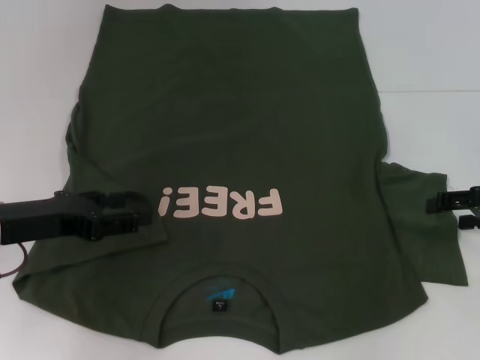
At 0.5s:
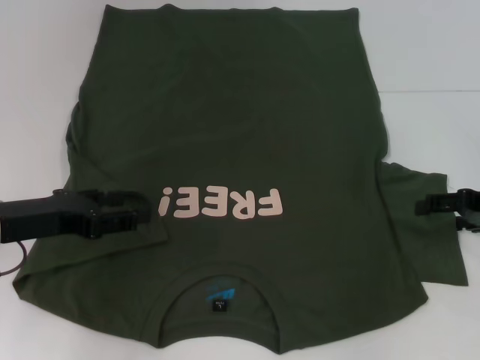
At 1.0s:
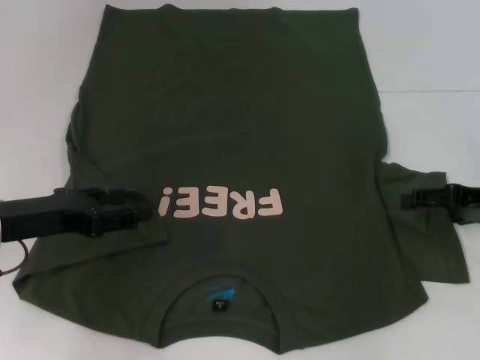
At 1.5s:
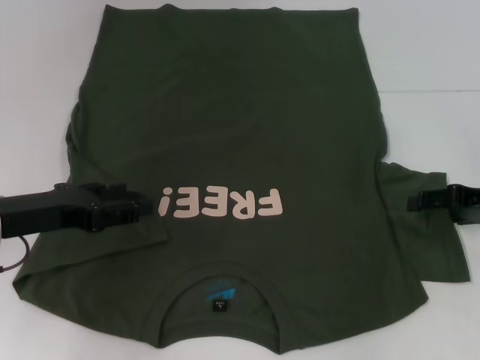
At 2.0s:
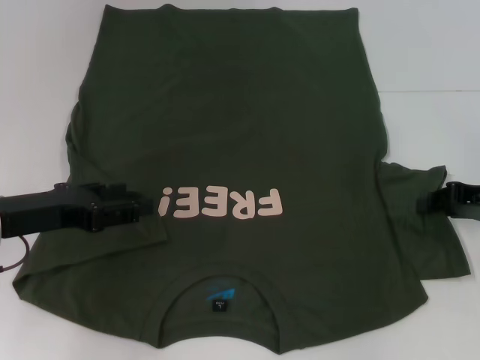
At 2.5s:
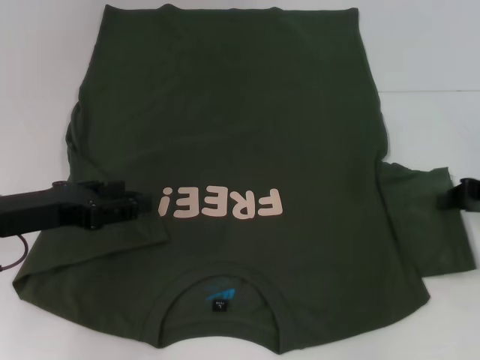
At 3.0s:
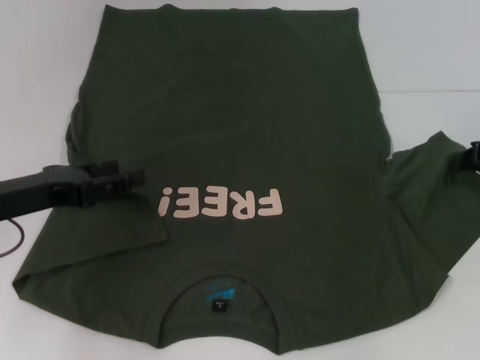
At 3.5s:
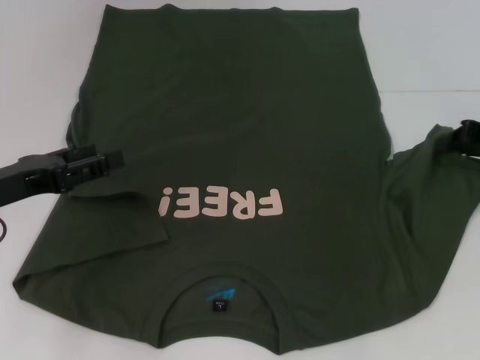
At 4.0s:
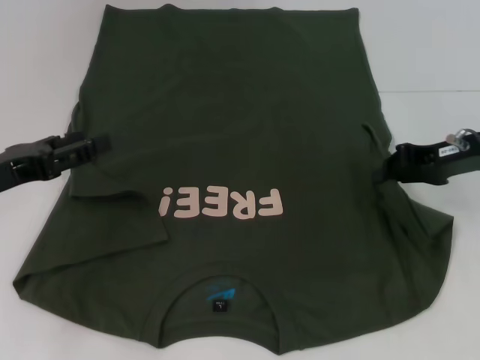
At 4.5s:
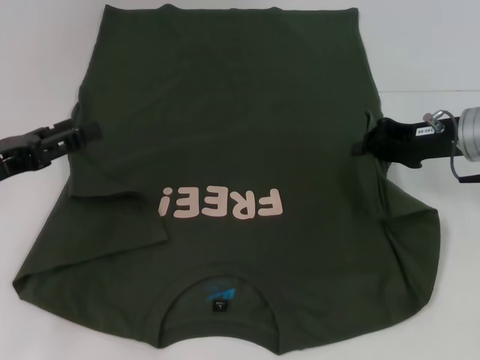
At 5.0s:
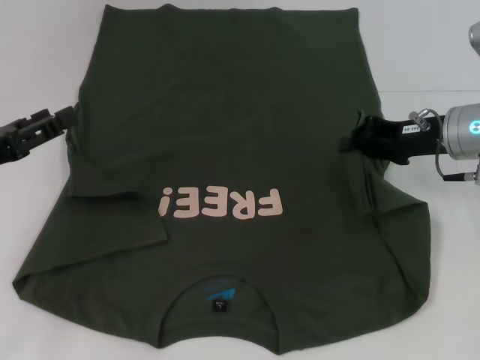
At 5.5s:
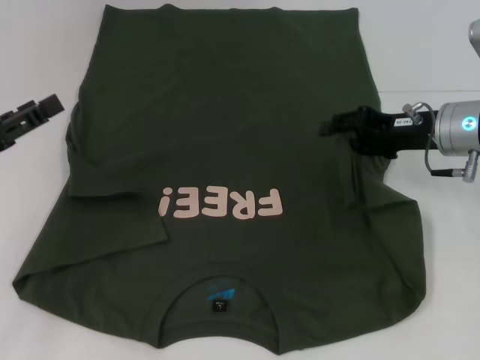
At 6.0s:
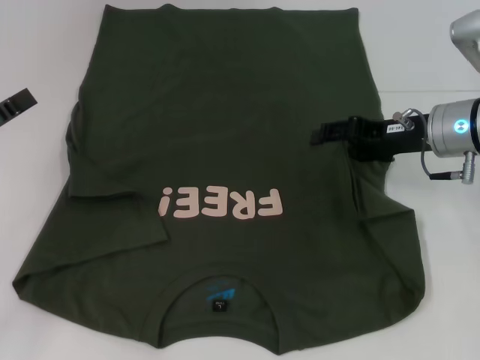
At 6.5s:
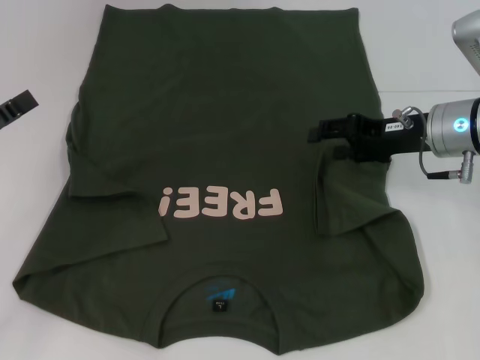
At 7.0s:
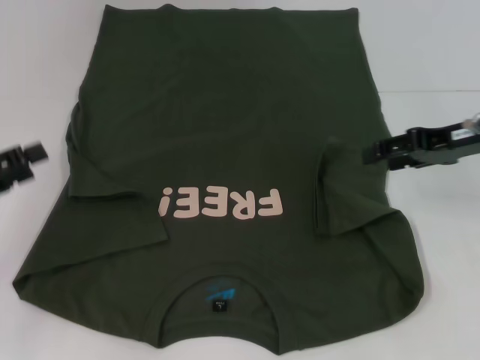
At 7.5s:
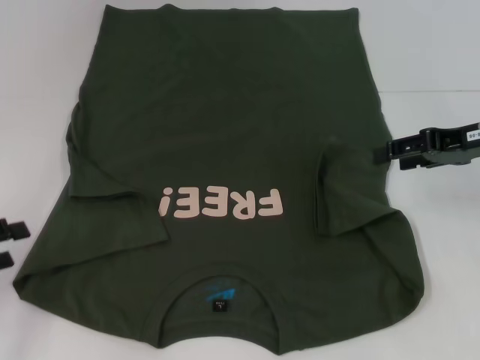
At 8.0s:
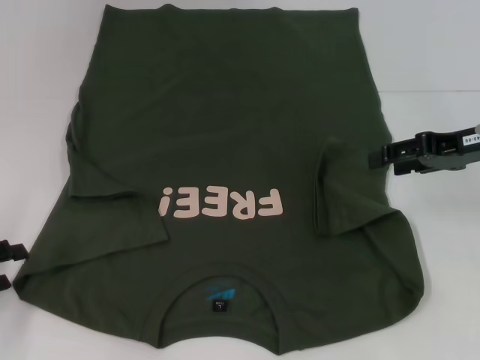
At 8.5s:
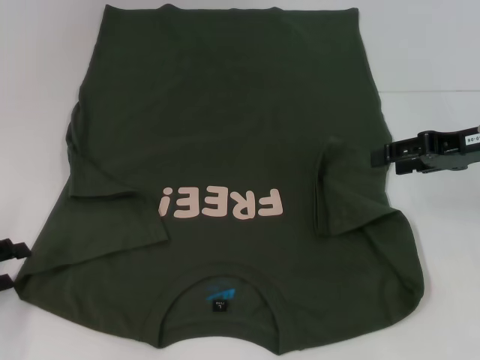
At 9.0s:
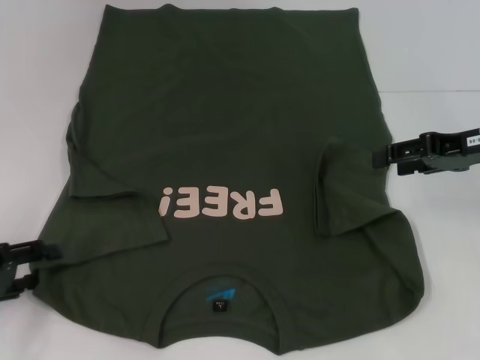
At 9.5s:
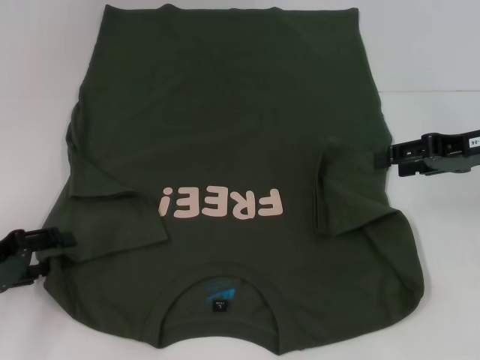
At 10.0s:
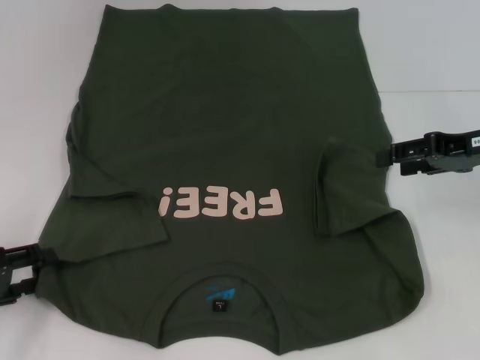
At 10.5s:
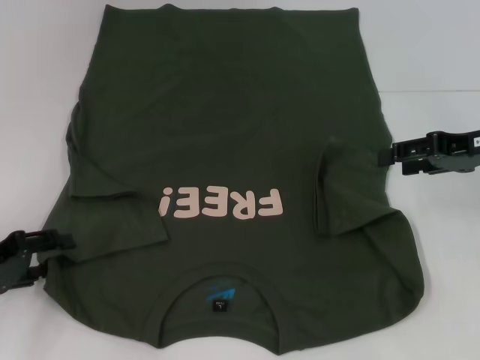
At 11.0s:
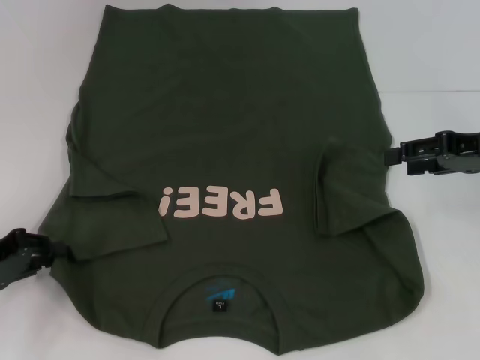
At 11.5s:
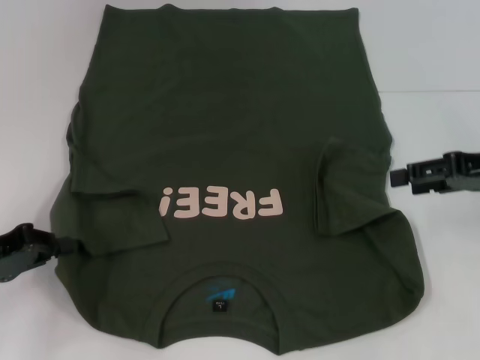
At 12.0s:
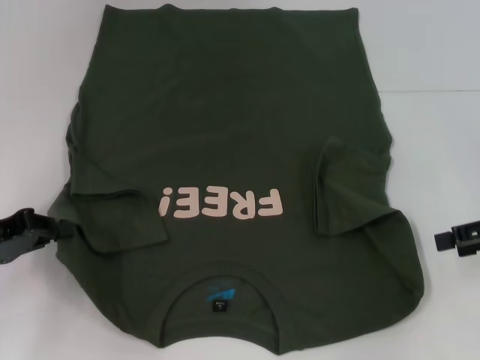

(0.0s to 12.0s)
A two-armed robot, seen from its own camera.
Step, 0.0s - 6.5s: Fold the bottom right sleeve with your right hand.
Step, 7.0s - 11.0s: Grab the bottom left corner with your left hand.
0.0s - 2.0s: The right gripper closes its fingers.
2.0s - 4.0s: The right gripper heads to the left, covering about 5 cm, and closes.
4.0s - 6.0s: The right gripper ends up about 5 cm from where it was, and opens up.
6.0s - 8.0s: The left gripper shifts roughly 5 cm downward, while the right gripper goes approximately 5 cm to the right.
8.0s - 10.0s: The grippers move only a little.
10.0s - 12.0s: The left gripper shifts by about 5 cm, and closes up. The right gripper heads backward and to the right, covering some 10 cm.

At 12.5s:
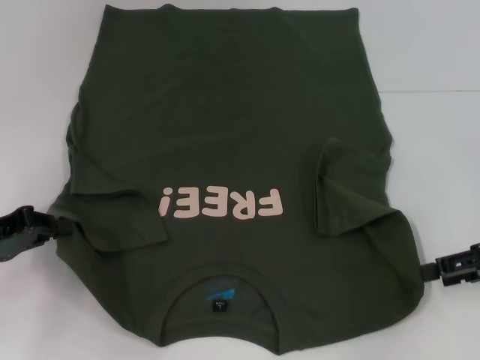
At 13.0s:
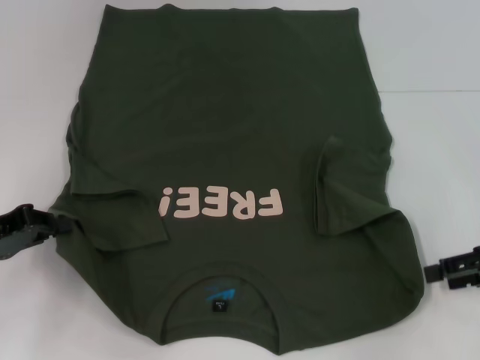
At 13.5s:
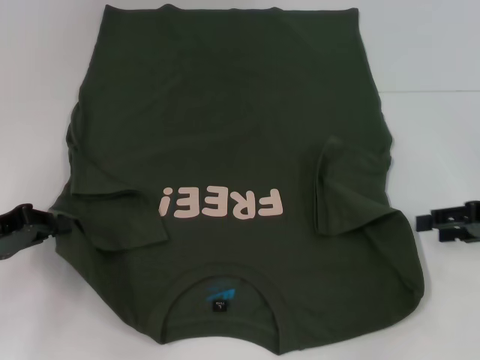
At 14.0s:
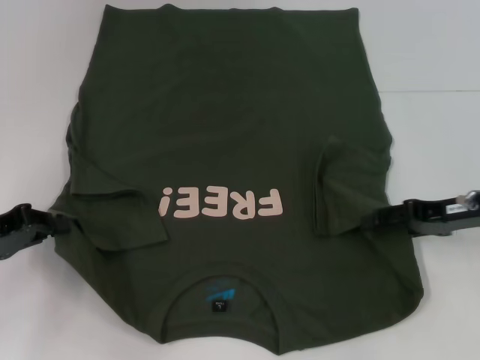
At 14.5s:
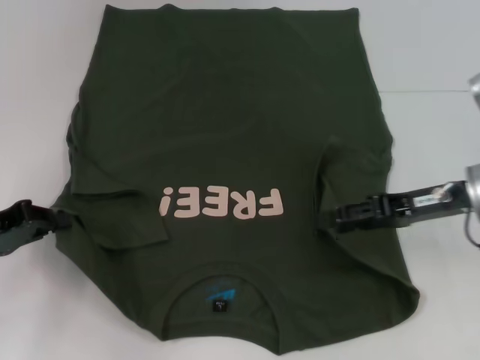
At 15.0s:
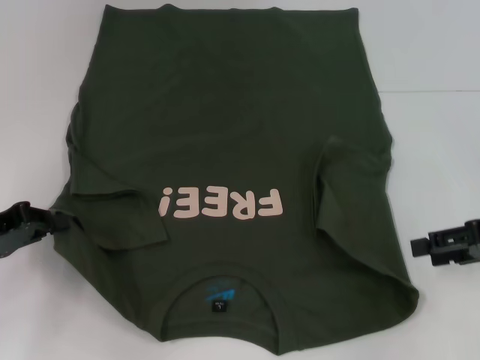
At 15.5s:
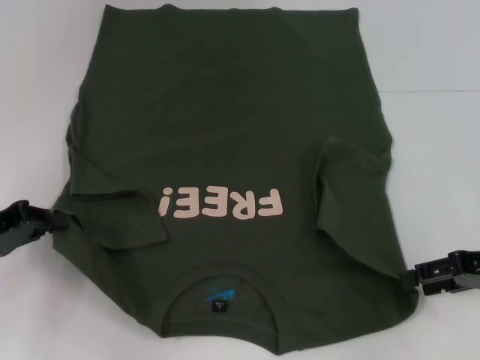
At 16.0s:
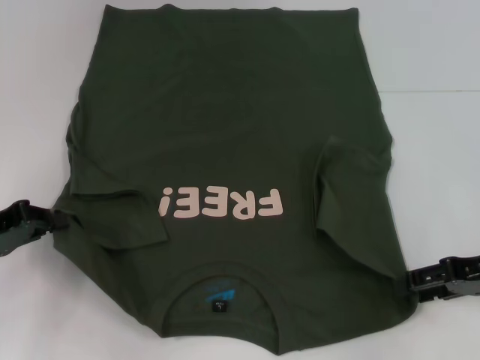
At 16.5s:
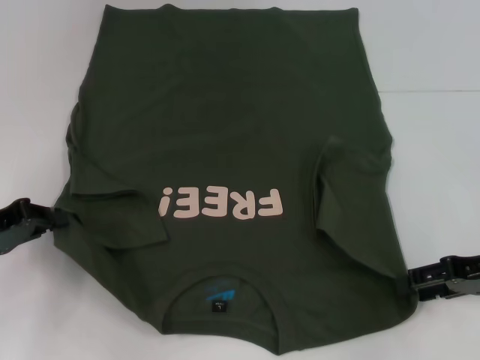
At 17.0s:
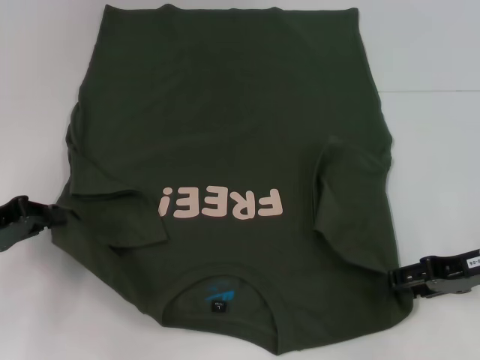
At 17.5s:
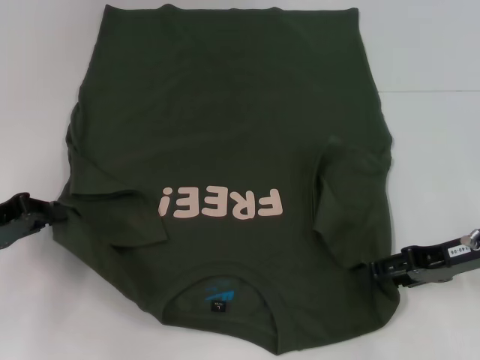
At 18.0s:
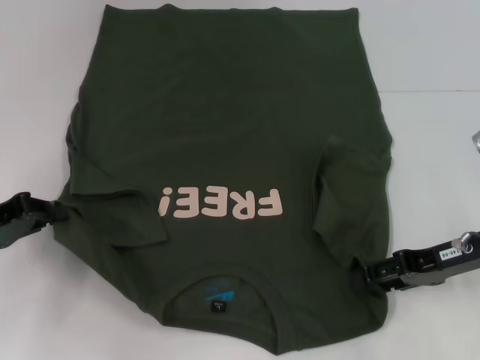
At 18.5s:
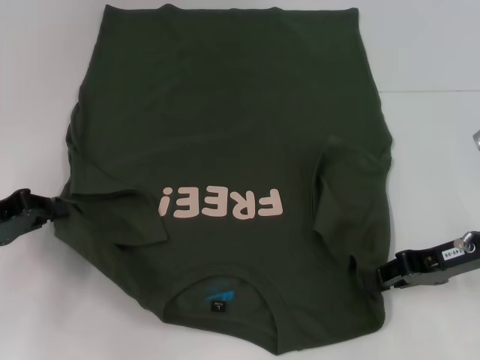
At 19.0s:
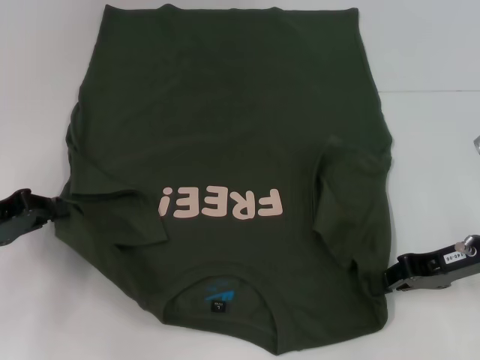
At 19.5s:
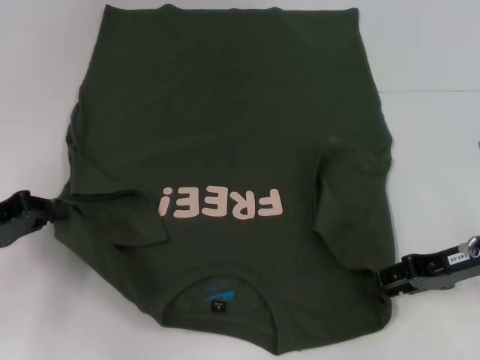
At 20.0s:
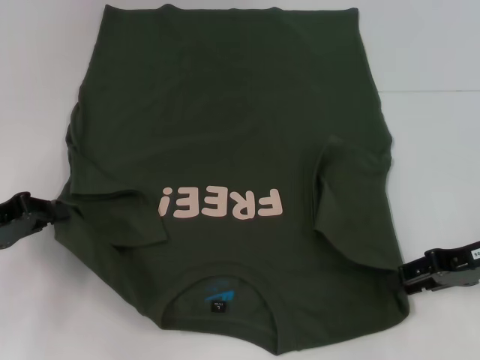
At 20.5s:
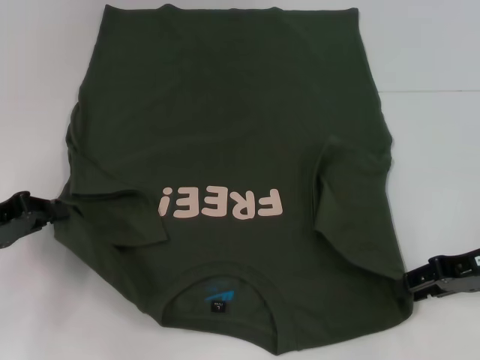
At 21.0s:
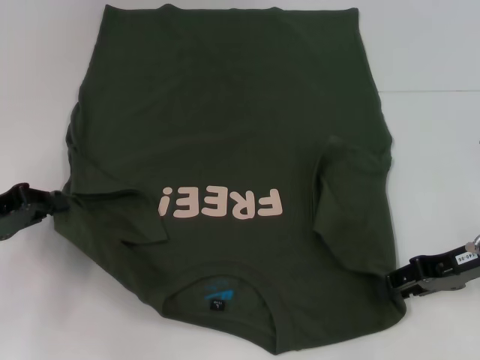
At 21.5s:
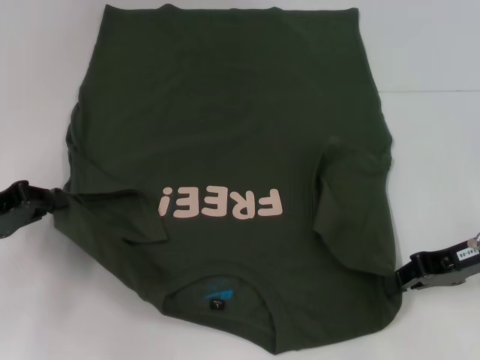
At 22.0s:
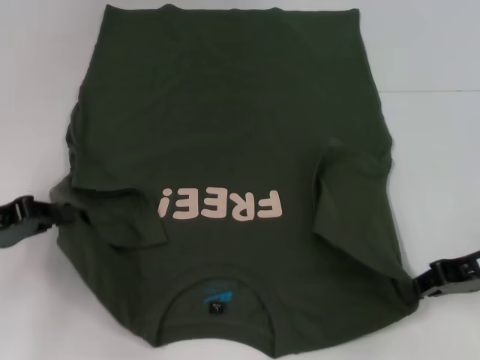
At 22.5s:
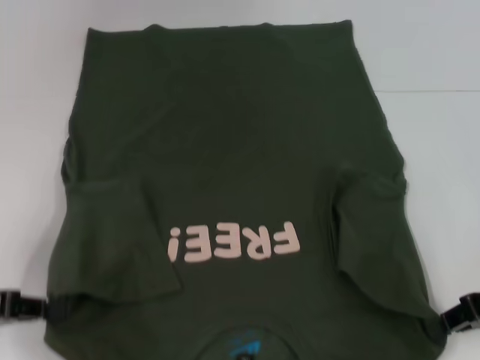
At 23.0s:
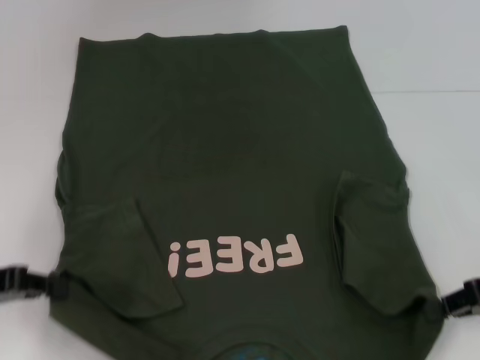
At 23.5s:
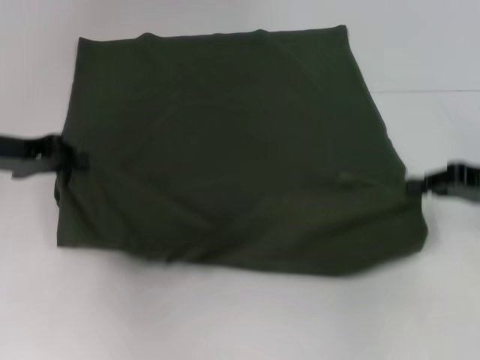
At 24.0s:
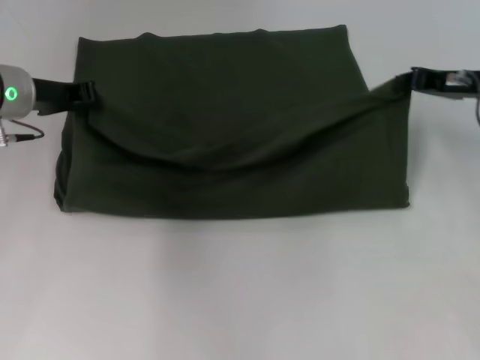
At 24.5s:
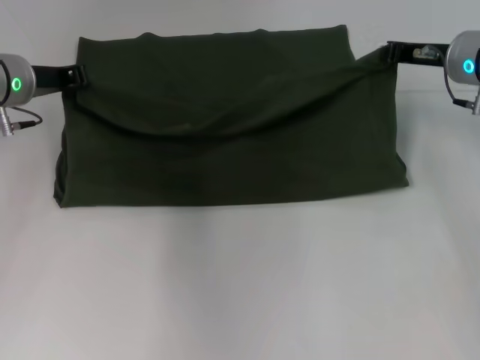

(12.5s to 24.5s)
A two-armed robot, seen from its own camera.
Step, 12.5s - 18.5s: Grab the bottom right corner with your right hand.
12.5s - 14.5s: The right gripper shifts approximately 10 cm to the left.
14.5s - 16.5s: The right gripper travels to the right by roughly 5 cm.
16.5s - 20.5s: The grippers move only a little.
20.5s - 22.5s: The left gripper travels backward by some 5 cm. The right gripper closes its fingers.
22.5s - 24.5s: The right gripper goes some 20 cm forward and to the left, while the left gripper is displaced forward and to the right by some 25 cm.

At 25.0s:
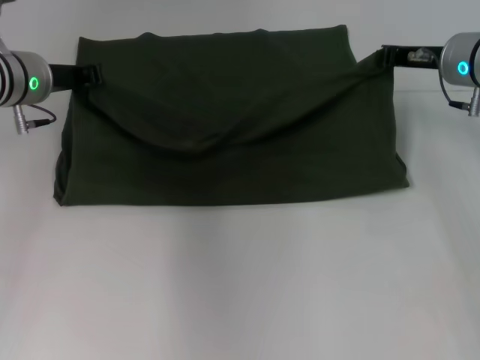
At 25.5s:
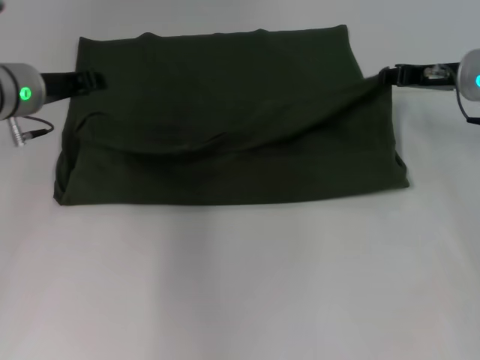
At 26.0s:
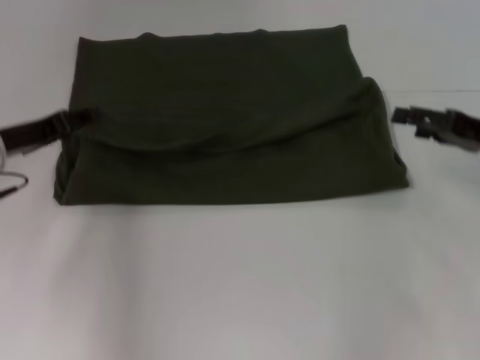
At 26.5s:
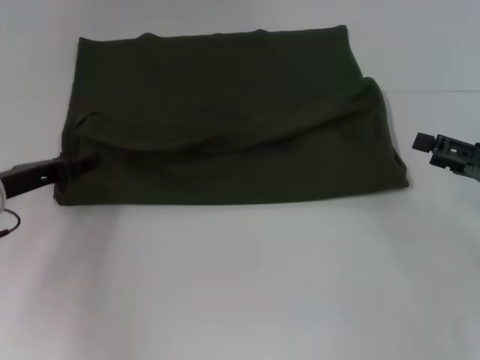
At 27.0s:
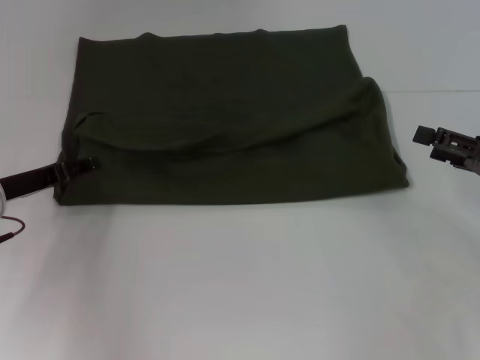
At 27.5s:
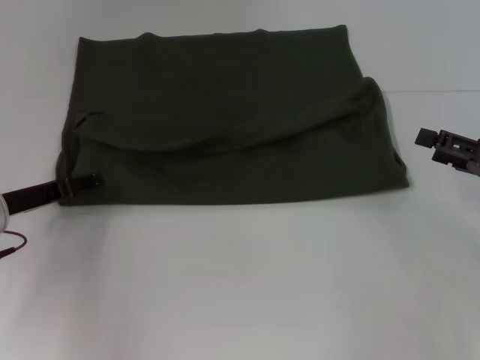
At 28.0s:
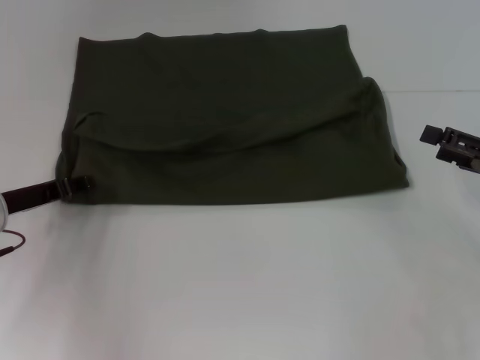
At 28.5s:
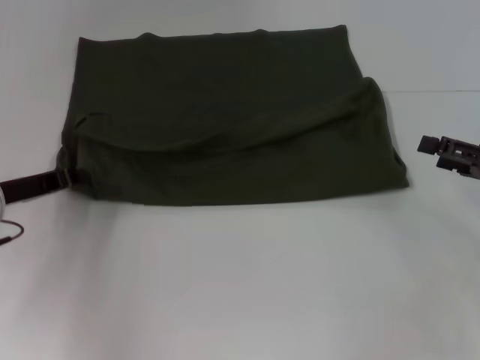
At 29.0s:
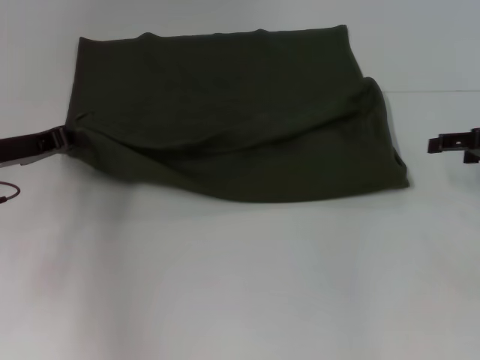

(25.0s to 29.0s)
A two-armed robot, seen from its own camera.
25.0s - 27.0s: The left gripper is displaced backward, downward and to the left by roughly 15 cm, and opens up, while the right gripper is displaced backward and to the right by some 20 cm, and opens its fingers.
27.0s - 29.0s: The left gripper closes. The right gripper travels forward by about 5 cm.
